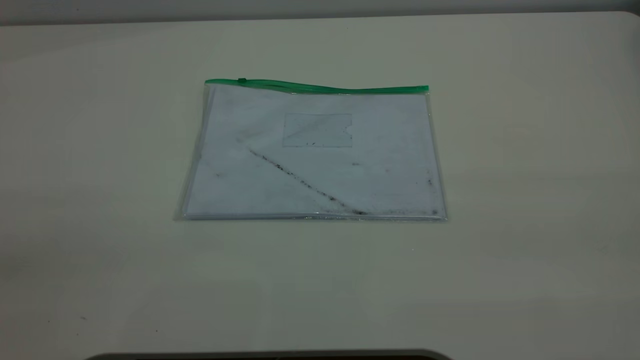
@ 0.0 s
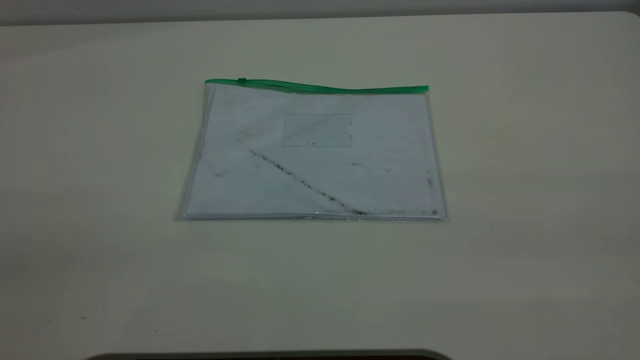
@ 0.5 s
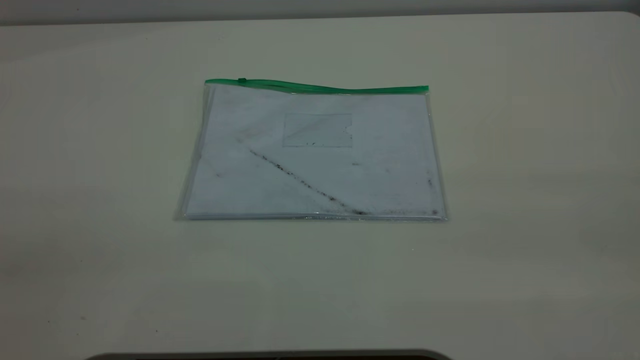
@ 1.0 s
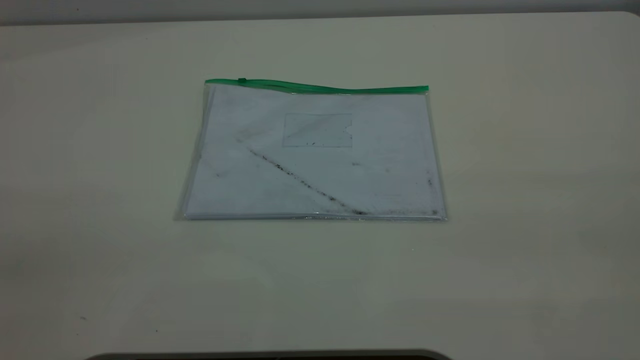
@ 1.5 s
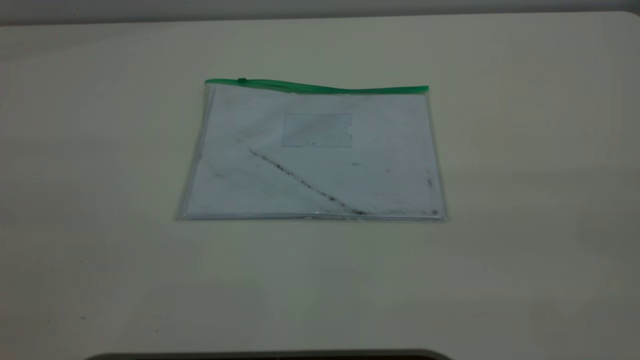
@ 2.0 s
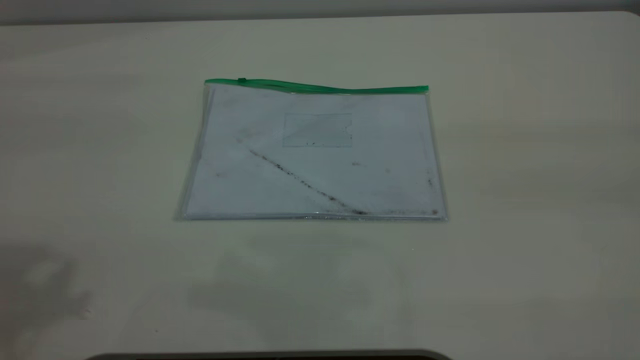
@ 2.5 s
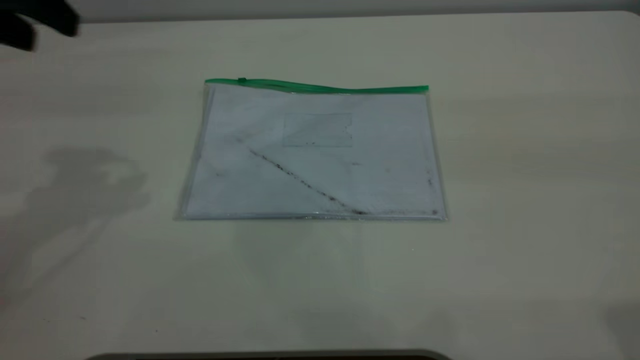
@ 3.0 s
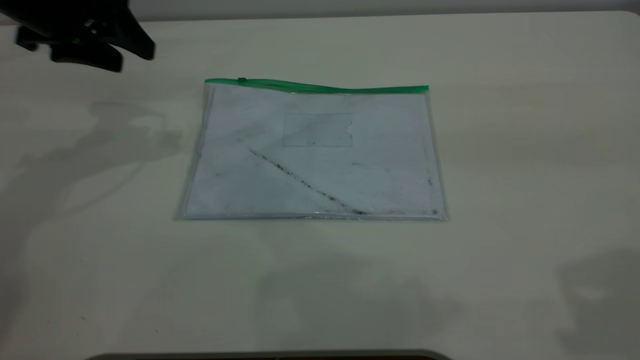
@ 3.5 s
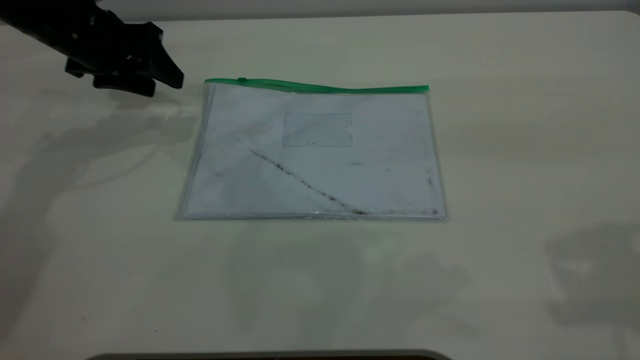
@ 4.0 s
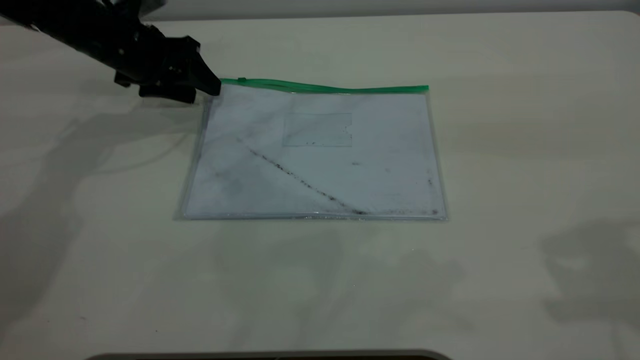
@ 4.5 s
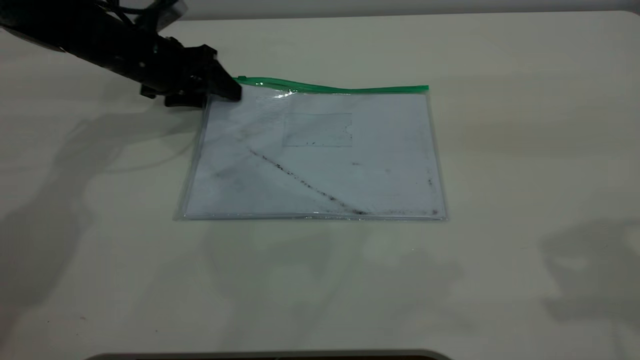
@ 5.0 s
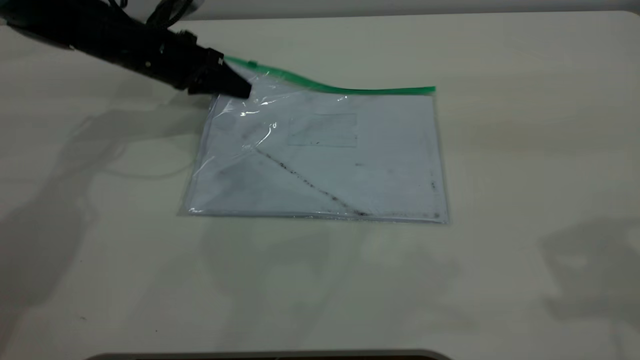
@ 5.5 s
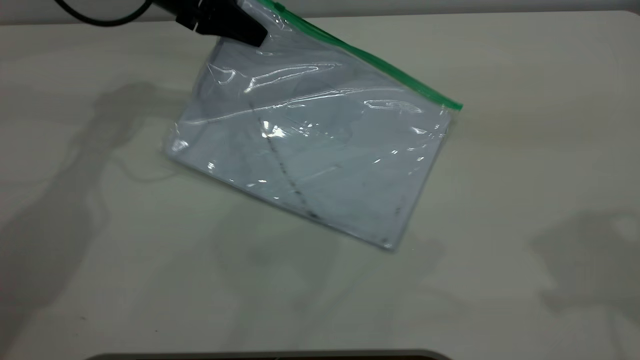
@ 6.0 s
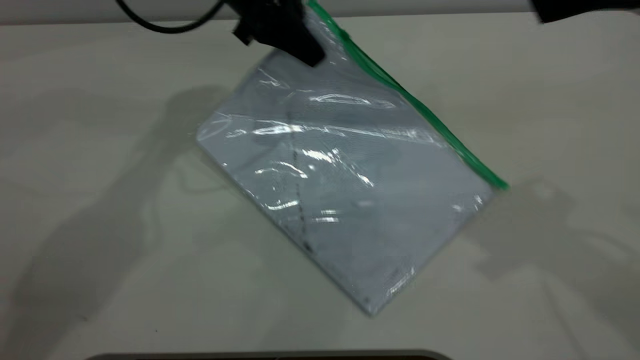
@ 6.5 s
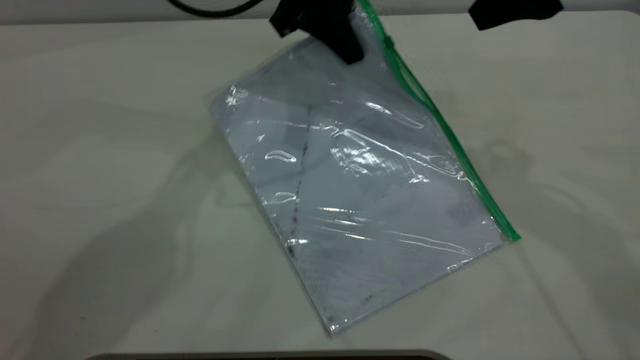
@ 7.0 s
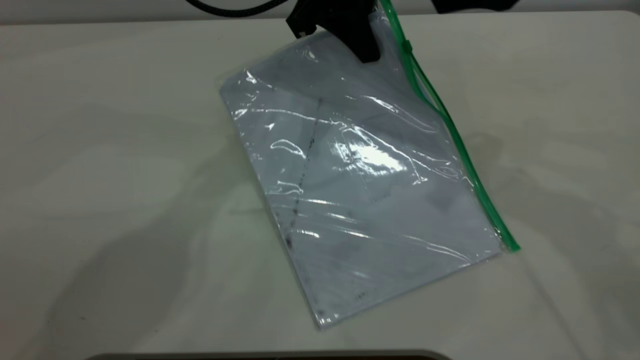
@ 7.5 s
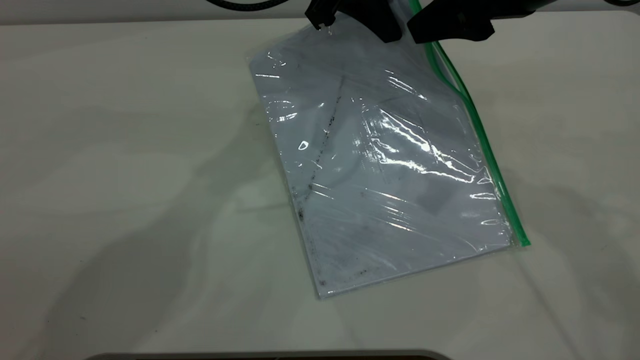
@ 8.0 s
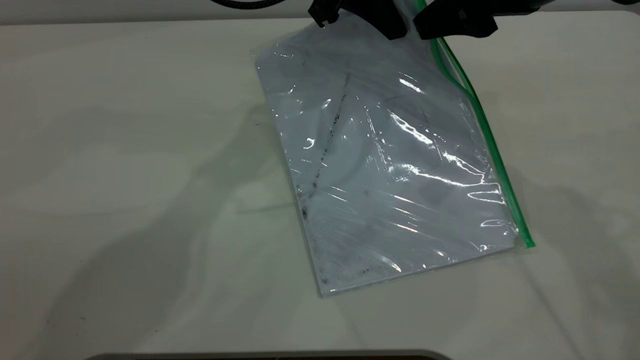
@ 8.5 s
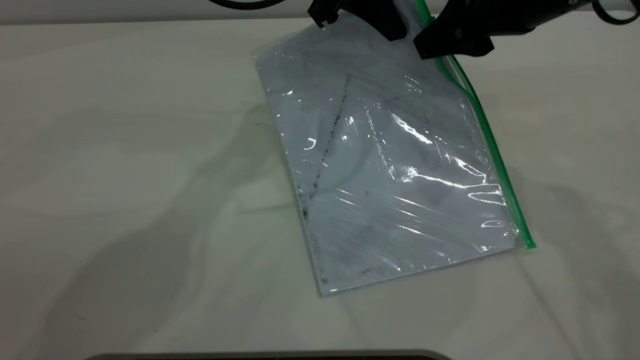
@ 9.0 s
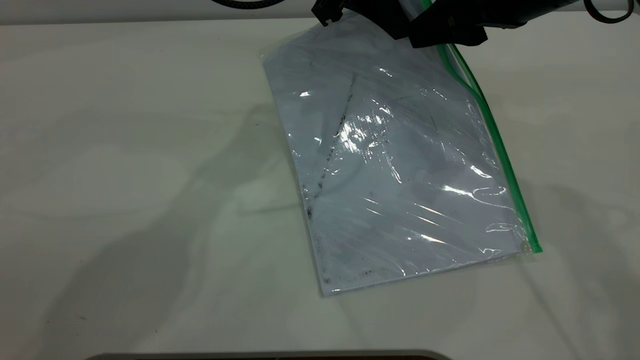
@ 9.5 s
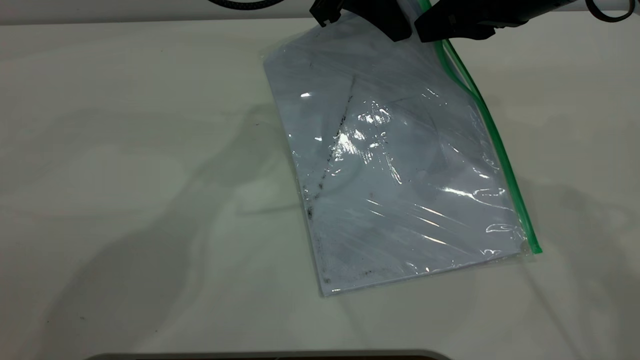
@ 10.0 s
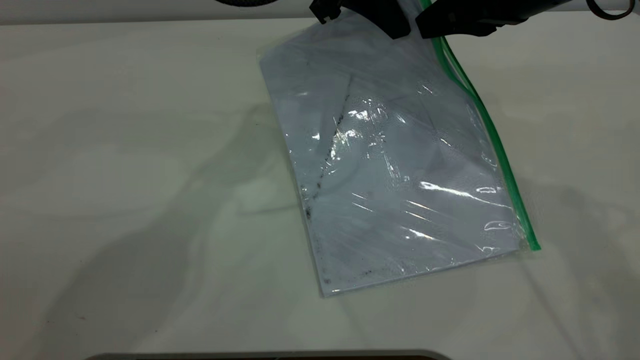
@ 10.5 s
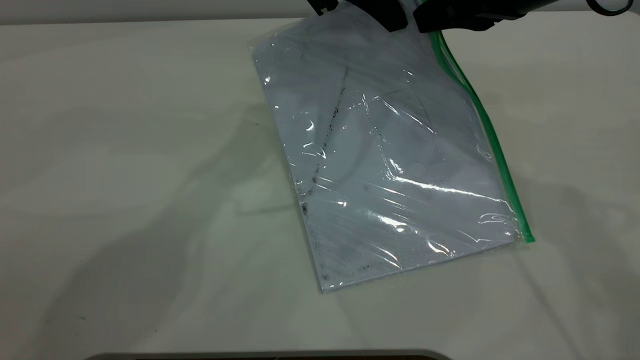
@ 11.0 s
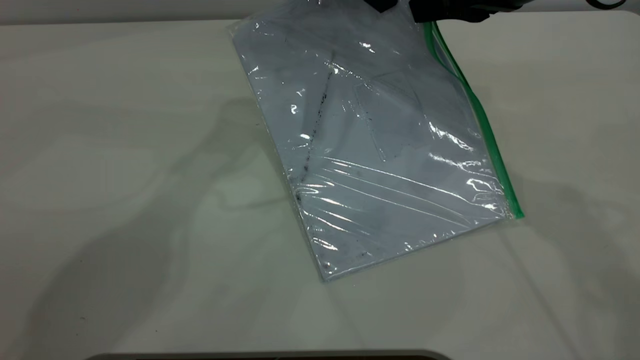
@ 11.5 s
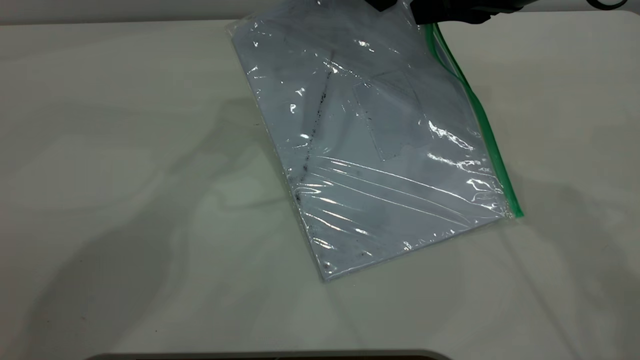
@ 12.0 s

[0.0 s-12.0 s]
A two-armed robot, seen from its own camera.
Step, 0.0 to 6.5 s: Pick up the transparent plastic bag with the left gripper.
2.0 to 4.0 s: The left gripper heads forward and downward, covering approximately 50 cm.
4.0 to 6.0 s: The left gripper moves to the right and forward, some 10 cm, and closes its fingers.
6.0 to 8.0 s: The right gripper shifts about 20 cm forward, to the left and downward, while the left gripper heads to the right, covering about 20 cm.
8.0 to 10.0 s: The right gripper closes up.
10.0 to 12.0 s: The grippers stay close to where they were, moving slightly.

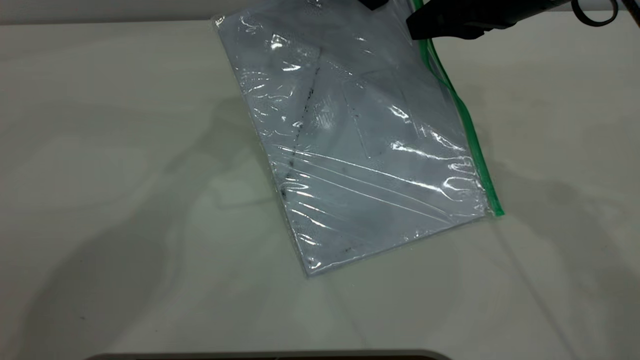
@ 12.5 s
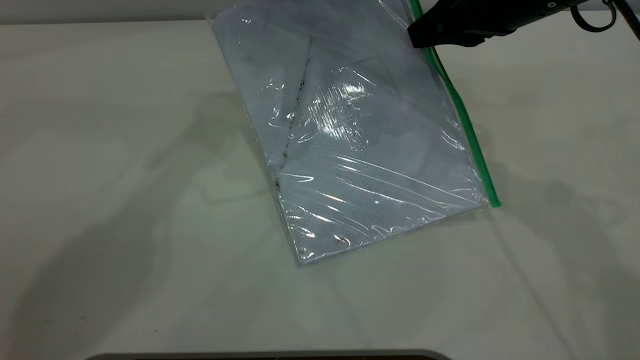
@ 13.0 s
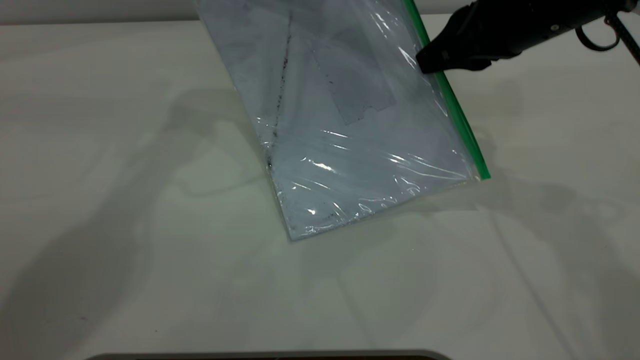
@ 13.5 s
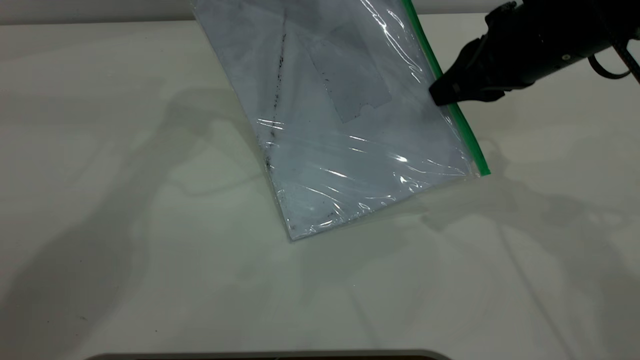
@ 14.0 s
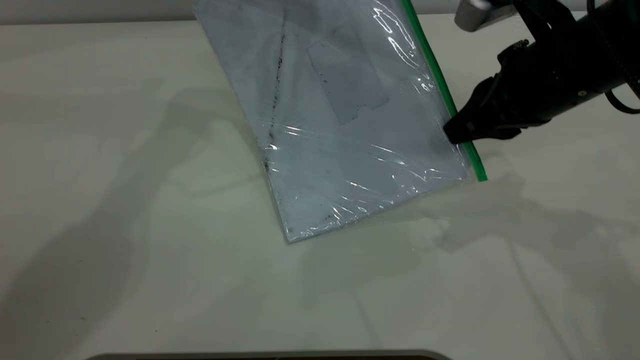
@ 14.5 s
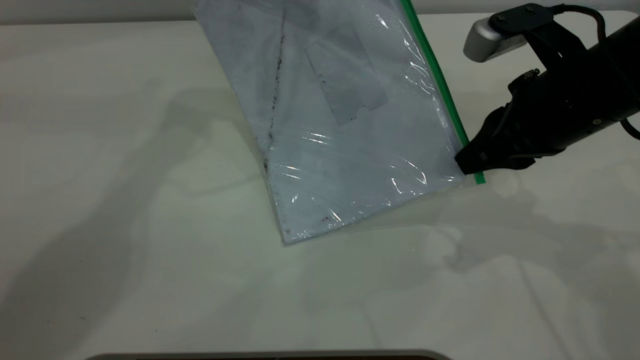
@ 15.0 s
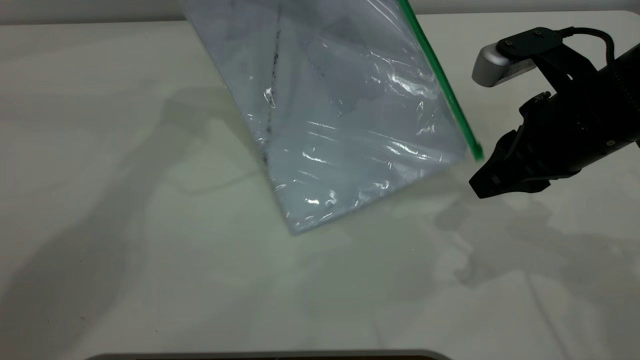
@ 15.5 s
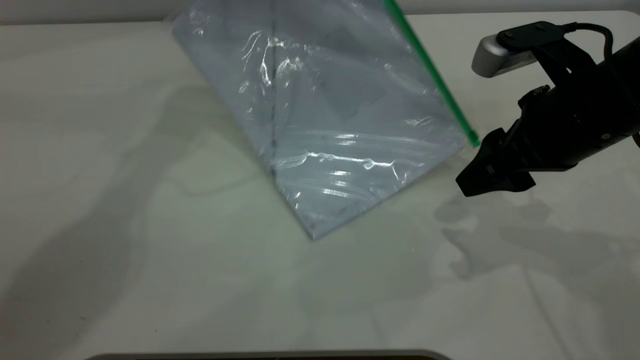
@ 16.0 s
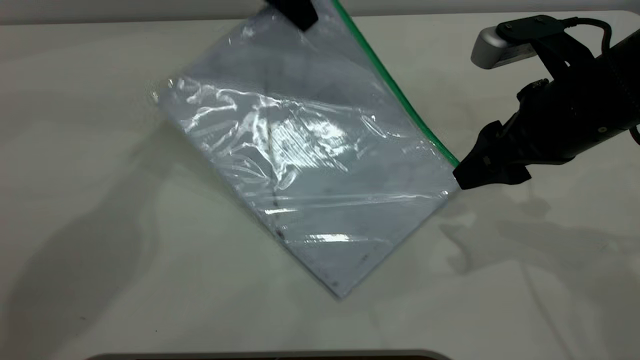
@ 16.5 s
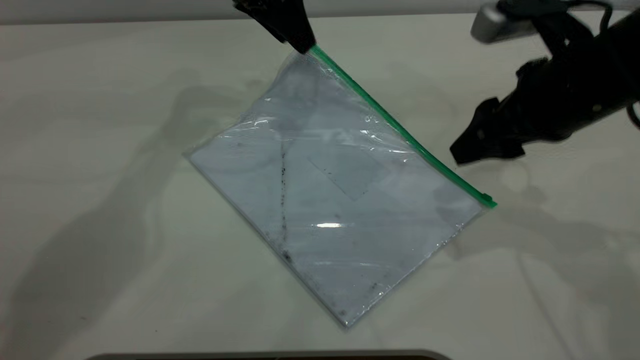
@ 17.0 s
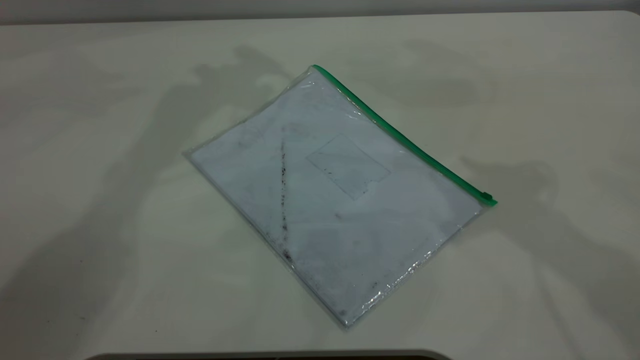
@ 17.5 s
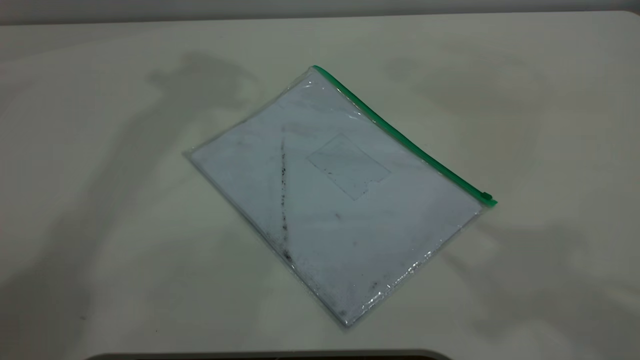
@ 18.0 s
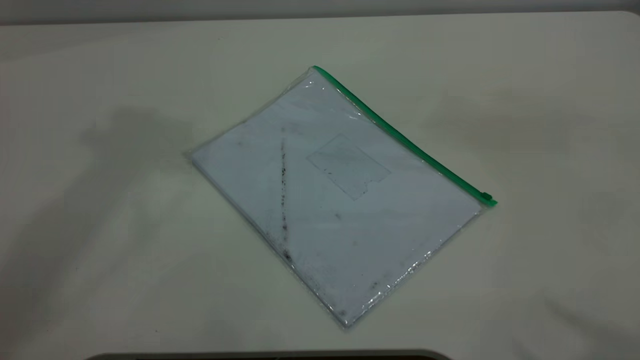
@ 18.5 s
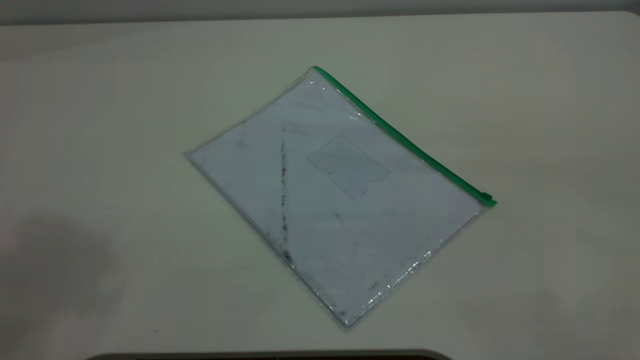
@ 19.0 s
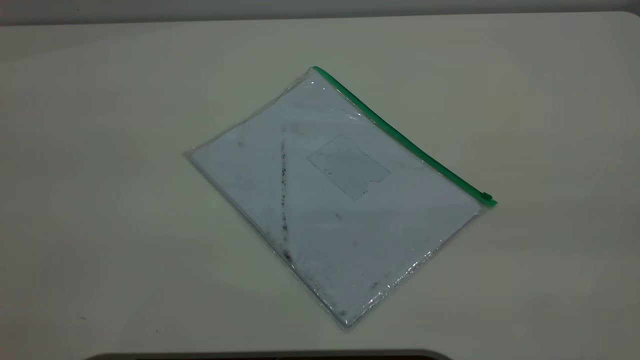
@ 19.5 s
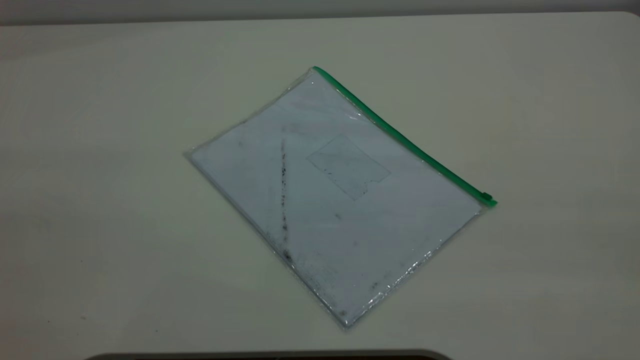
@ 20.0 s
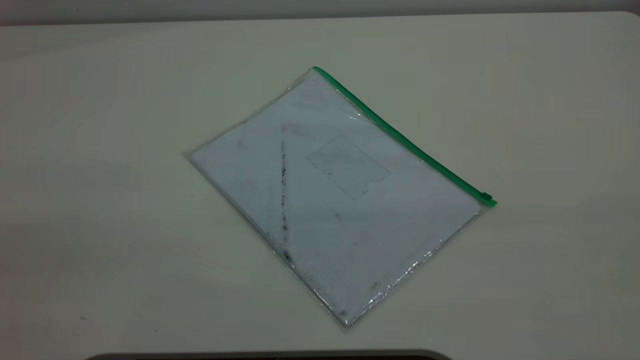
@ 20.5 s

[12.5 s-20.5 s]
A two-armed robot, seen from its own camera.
Step, 12.5 to 16.0 s: Pulling up the zipper on the transparent plastic bag with the right gripper to close it.
Step, 16.5 to 17.0 s: Place the transparent plastic bag.
12.5 to 14.5 s: The right gripper travels downward by approximately 5 cm; the left gripper moves to the left, some 5 cm.
14.5 to 16.5 s: The left gripper goes approximately 5 cm downward. The right gripper opens.
16.5 to 18.5 s: The two grippers go about 40 cm upward and backward. The left gripper opens.
